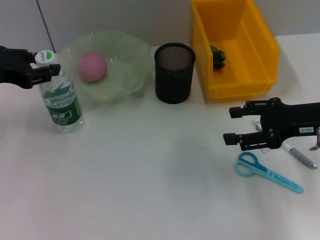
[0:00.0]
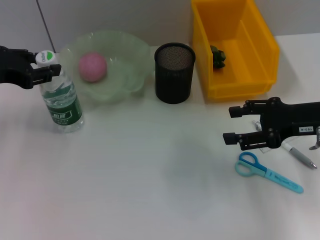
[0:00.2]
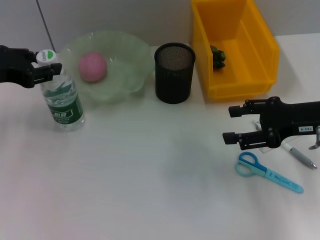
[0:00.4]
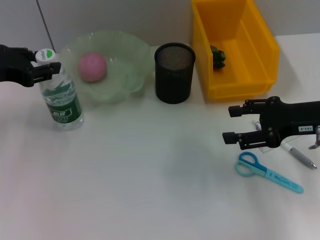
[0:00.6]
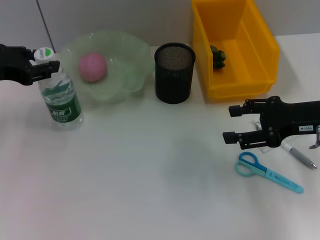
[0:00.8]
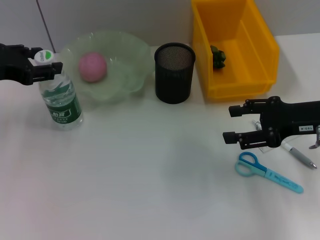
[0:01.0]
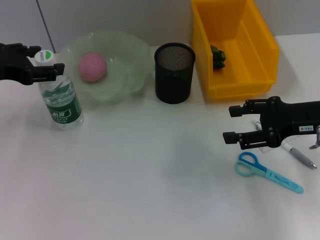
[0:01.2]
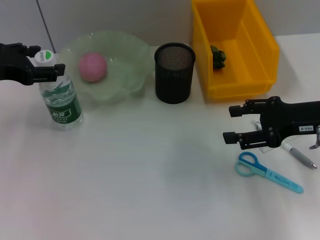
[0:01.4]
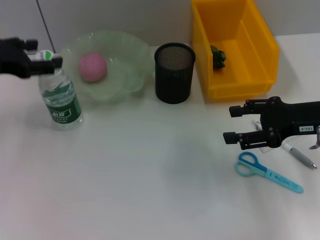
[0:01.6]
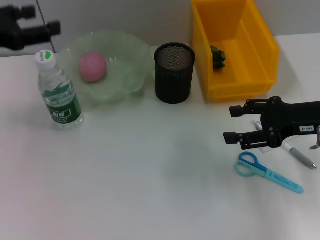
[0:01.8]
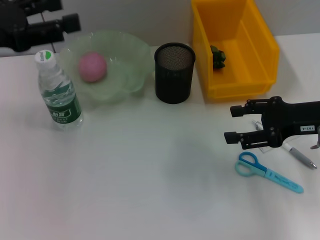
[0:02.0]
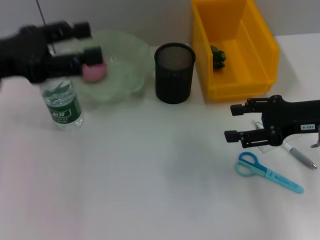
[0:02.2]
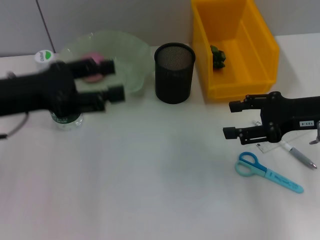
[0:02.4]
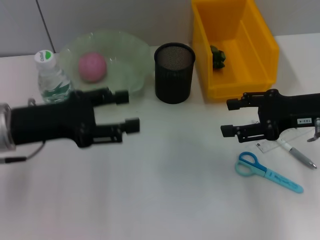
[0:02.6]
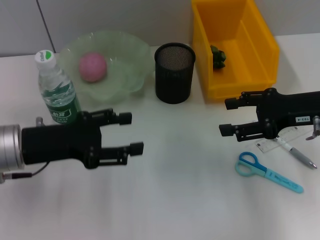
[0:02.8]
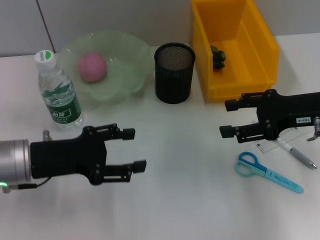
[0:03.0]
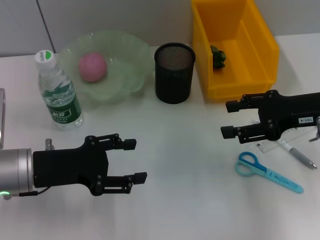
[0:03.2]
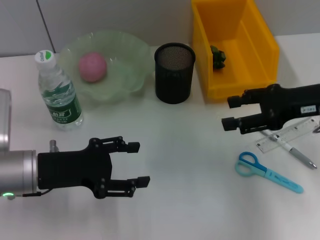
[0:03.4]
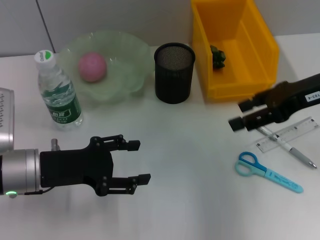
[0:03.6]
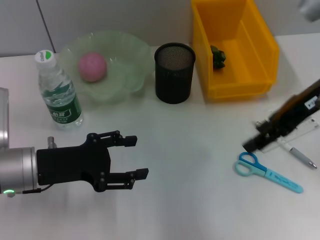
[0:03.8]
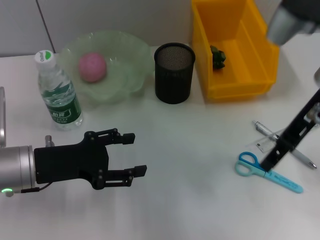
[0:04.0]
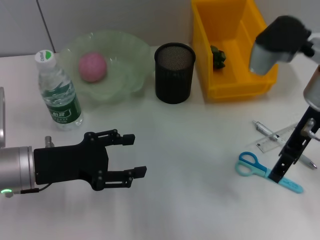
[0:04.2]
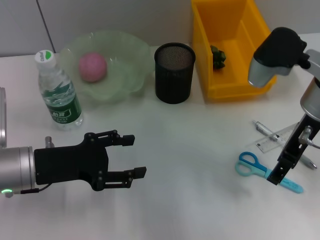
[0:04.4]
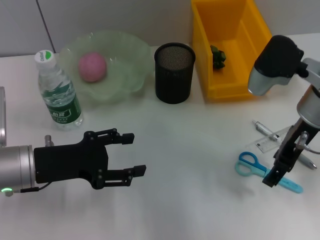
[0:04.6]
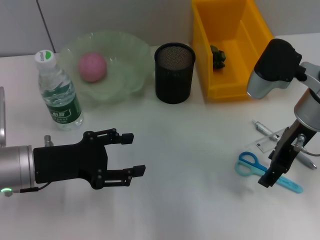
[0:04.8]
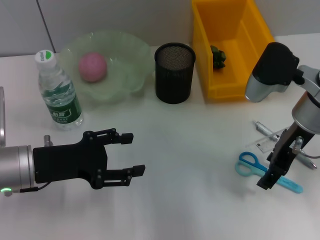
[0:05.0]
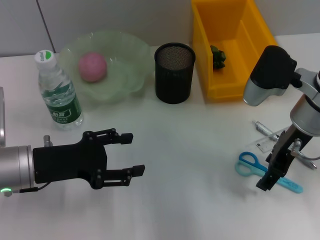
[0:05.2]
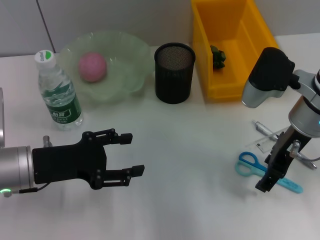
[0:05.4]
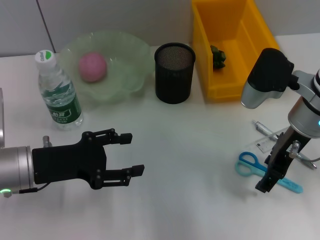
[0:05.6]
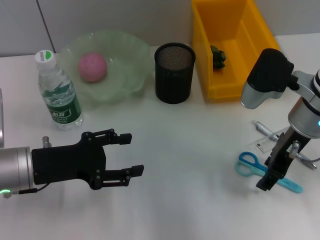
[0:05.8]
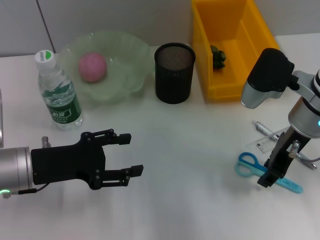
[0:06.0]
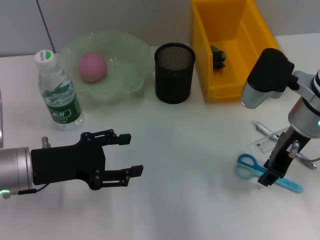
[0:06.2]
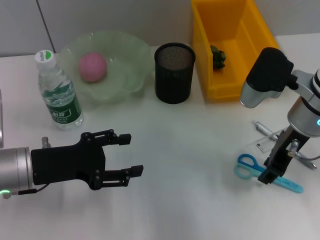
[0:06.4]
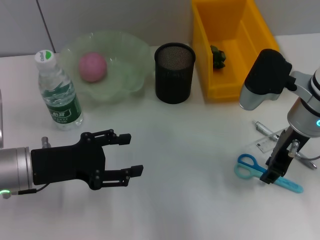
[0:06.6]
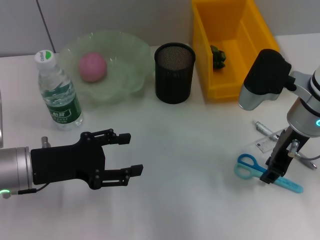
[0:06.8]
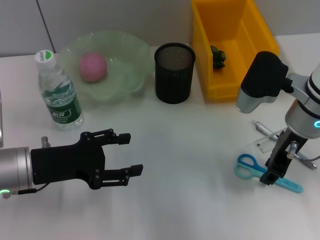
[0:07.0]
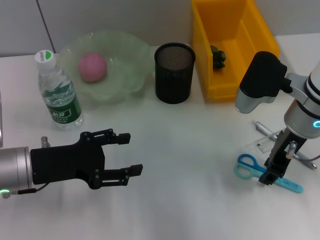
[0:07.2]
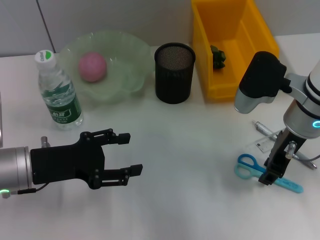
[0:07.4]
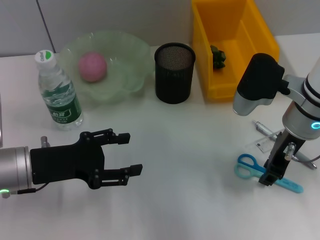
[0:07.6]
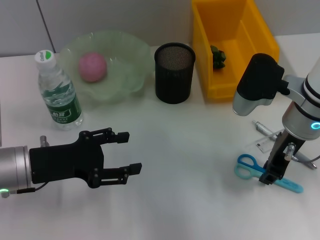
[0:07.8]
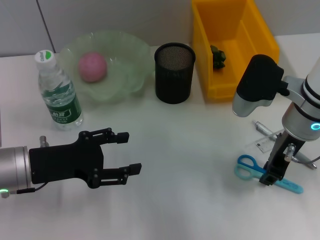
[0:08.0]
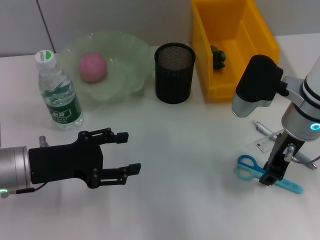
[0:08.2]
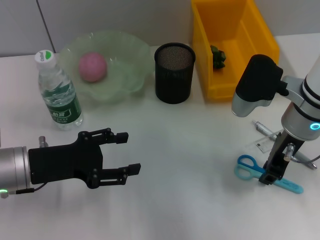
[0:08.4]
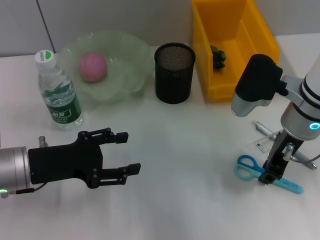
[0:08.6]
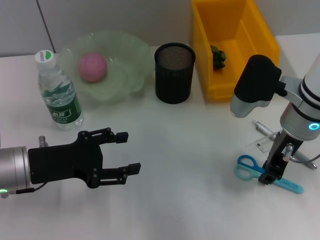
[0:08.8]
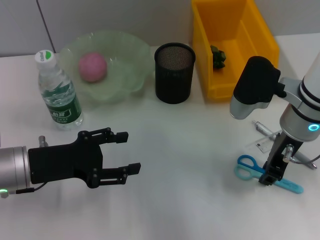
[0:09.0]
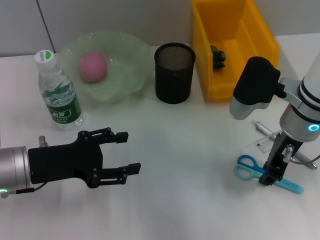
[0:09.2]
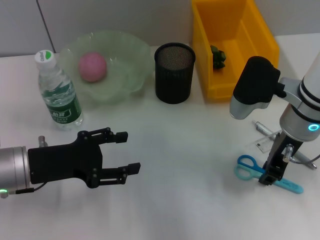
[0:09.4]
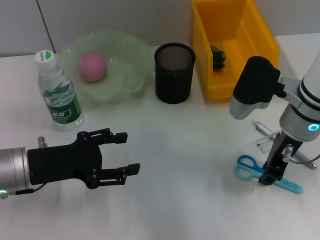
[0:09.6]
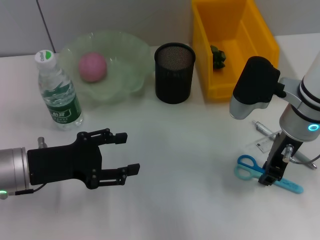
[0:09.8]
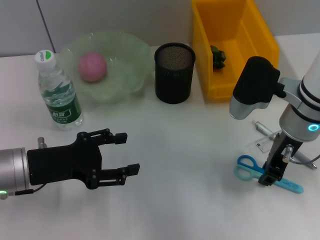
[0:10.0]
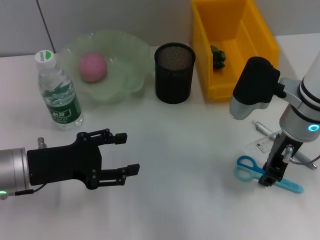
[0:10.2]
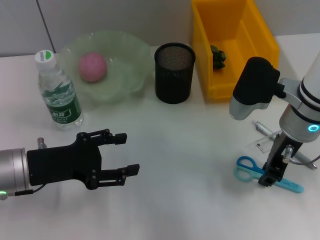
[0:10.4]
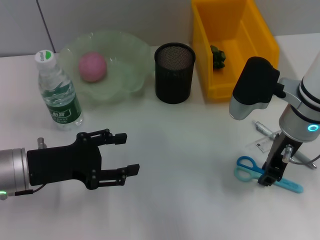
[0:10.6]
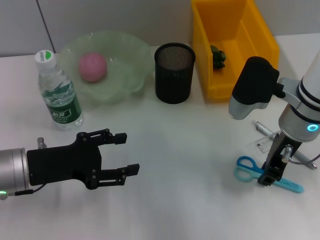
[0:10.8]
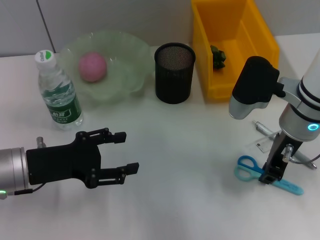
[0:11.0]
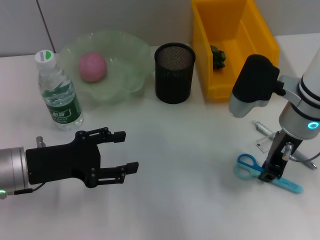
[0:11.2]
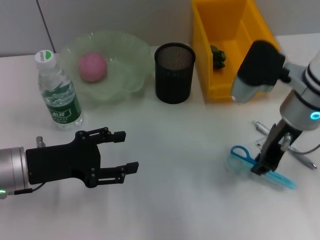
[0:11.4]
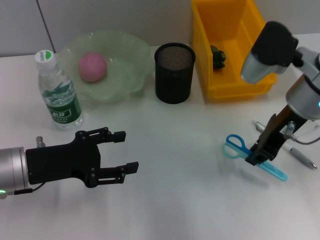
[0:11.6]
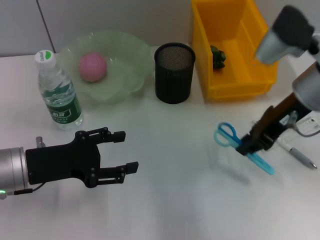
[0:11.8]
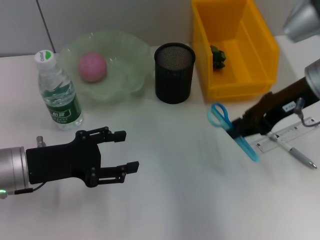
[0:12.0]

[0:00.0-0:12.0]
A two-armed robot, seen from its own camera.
Step, 0:01.6 to 0:10.8: Grab the blue scissors with the right hand.
0:00.0 to 0:01.6: The left gripper opens its fingers.
0:01.6 to 0:03.0: The left gripper heads downward, backward and to the right, covering roughly 15 cm.
0:03.0 to 0:04.4: The right gripper goes about 5 cm to the left.
0:04.4 to 0:06.0: There are only small adjustments of the grippers.
0:06.0 to 0:07.6: Both grippers stay about where they are.
0:07.6 to 0:10.4: The two grippers keep their place.
0:10.4 to 0:12.0: The right gripper heads upward, covering some 5 cm.

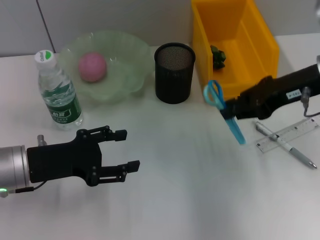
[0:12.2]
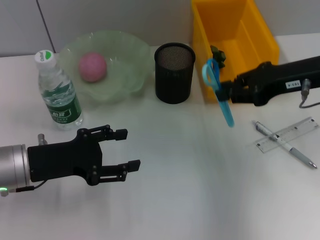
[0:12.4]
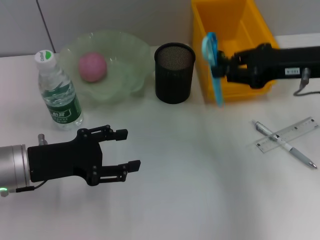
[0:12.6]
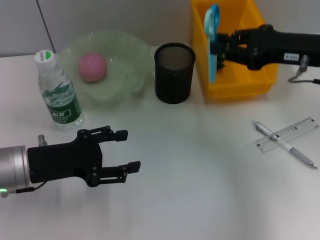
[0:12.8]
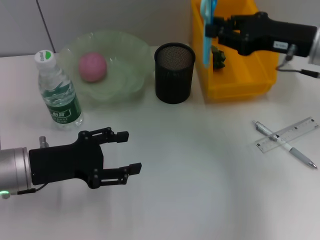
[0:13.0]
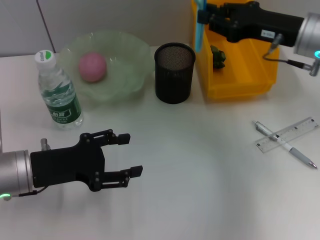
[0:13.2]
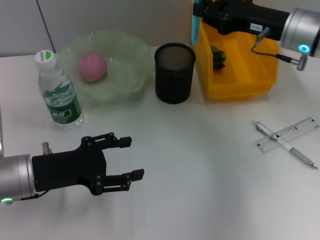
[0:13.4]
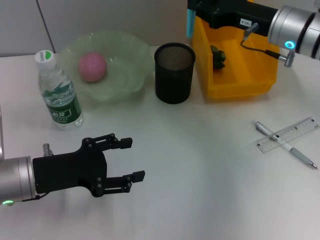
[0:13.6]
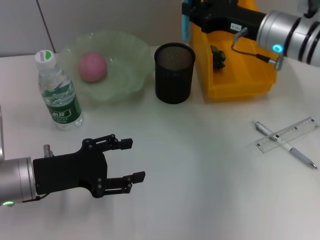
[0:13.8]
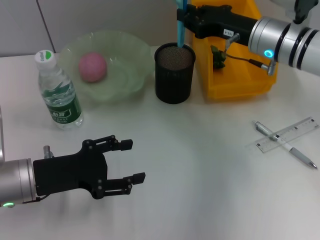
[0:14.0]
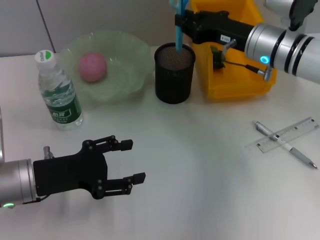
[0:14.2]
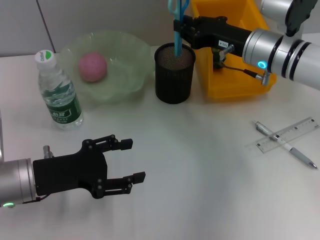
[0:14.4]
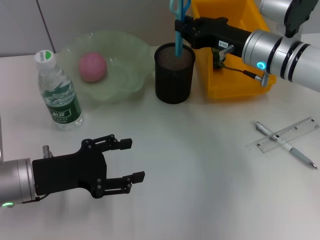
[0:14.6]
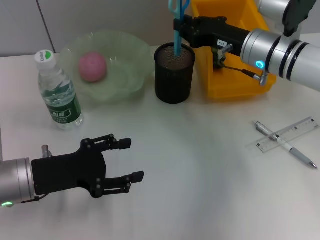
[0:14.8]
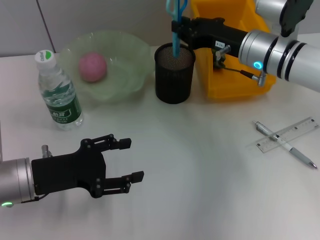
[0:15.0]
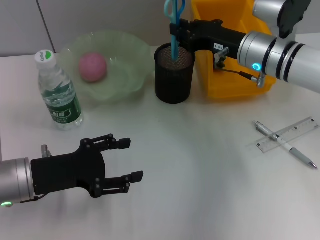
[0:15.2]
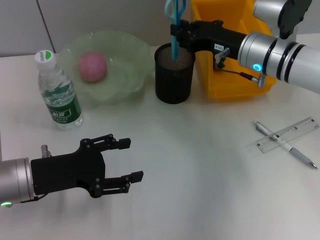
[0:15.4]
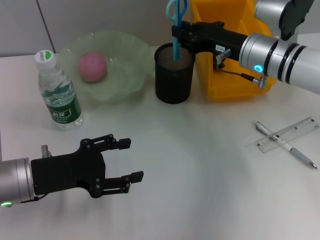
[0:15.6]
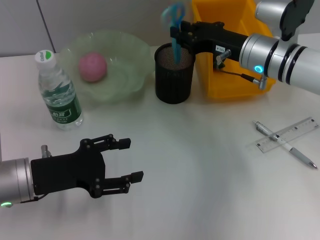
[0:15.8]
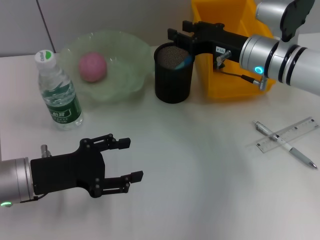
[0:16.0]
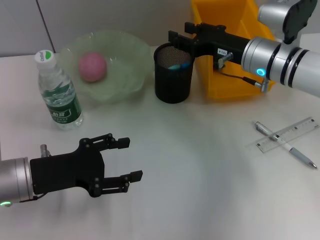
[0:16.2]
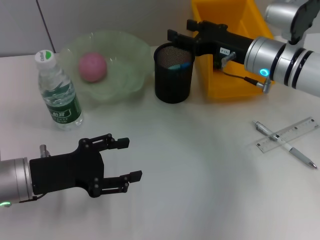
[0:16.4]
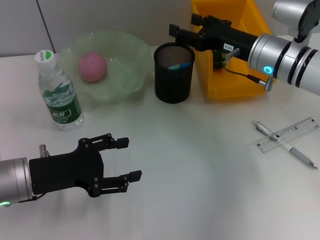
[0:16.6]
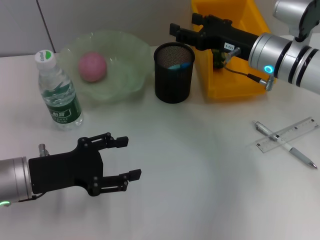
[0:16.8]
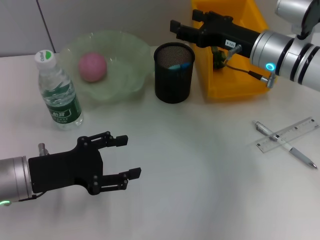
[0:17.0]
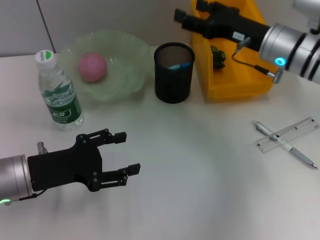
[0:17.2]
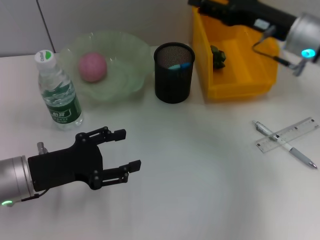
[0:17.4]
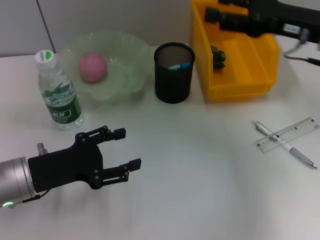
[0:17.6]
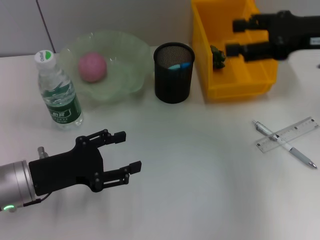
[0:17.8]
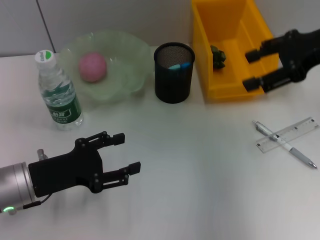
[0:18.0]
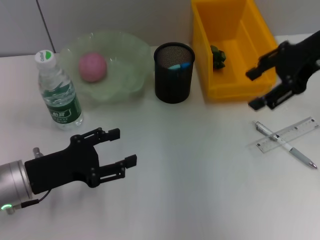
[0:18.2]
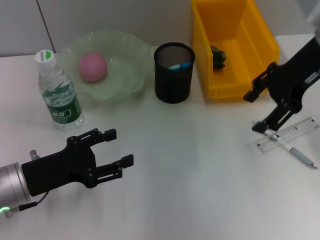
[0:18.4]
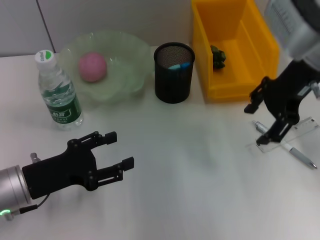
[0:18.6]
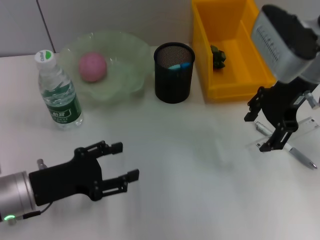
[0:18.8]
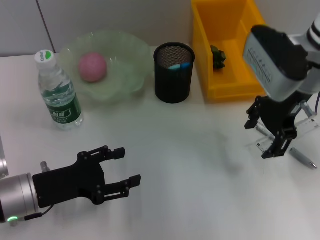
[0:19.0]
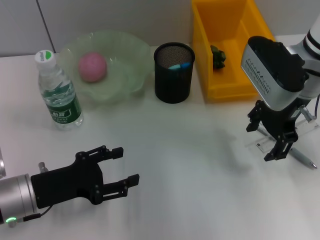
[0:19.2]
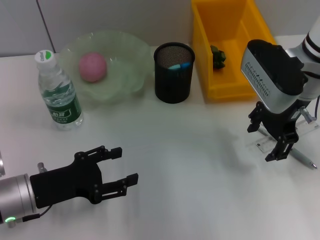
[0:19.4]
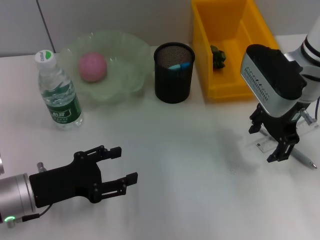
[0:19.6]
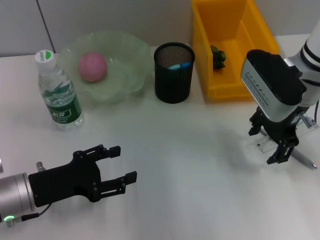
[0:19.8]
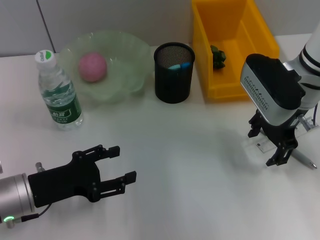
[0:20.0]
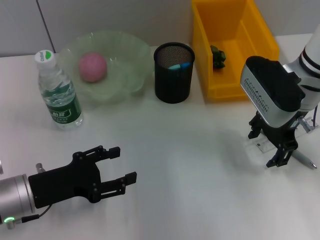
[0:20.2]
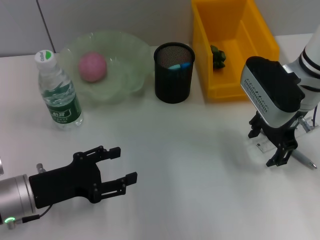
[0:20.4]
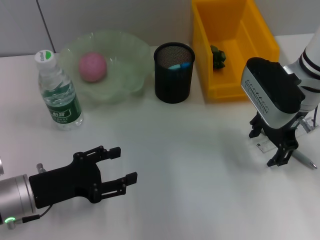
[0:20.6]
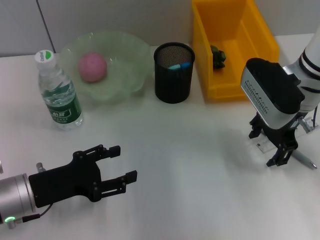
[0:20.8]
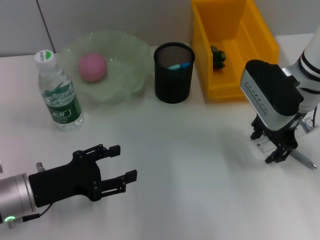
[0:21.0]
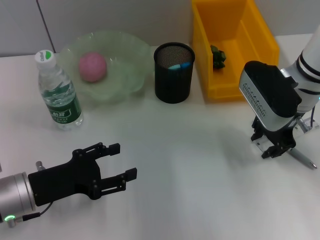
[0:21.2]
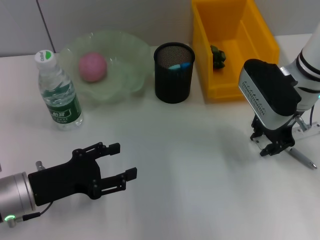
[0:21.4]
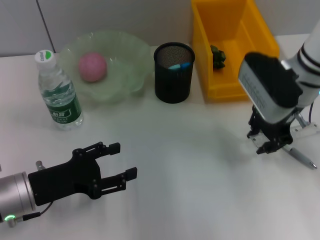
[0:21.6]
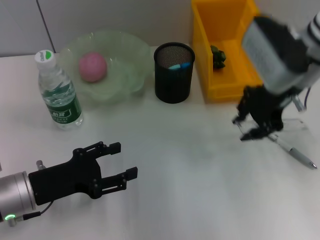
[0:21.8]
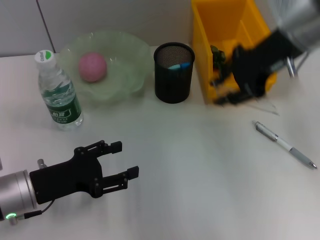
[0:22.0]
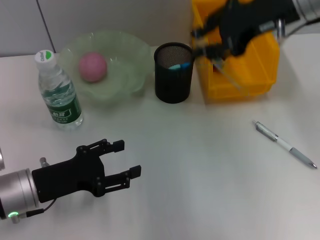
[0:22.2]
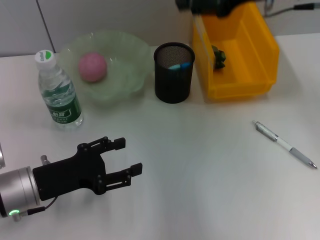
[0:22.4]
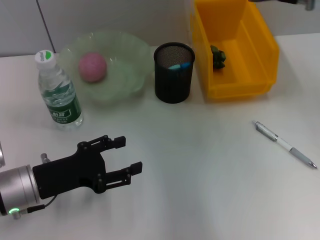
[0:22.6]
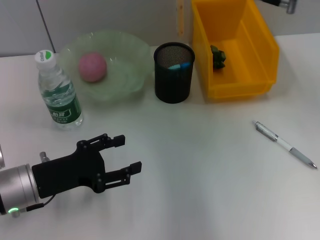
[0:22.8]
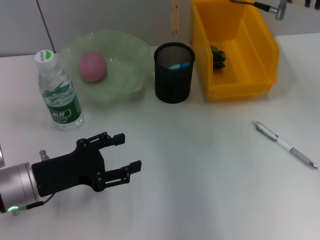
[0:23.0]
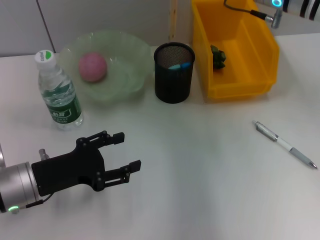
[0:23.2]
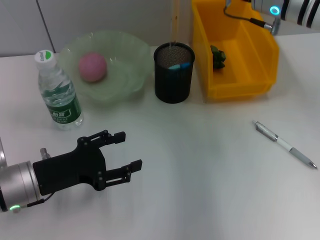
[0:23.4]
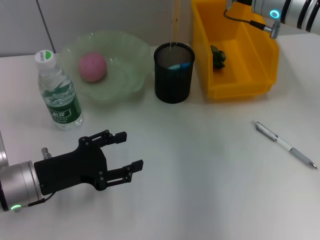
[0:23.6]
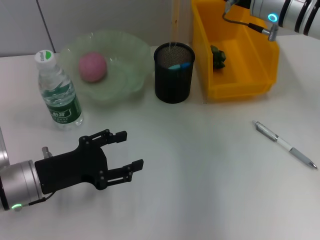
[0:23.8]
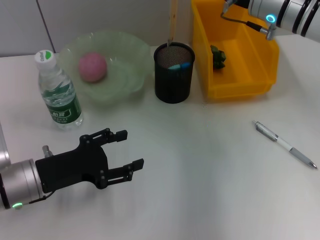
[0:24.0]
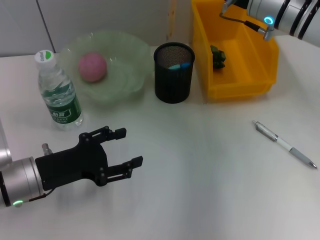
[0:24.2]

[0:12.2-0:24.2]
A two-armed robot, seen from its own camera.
Step, 0:12.2 to 0:16.0: Place the blue scissors into the pen holder with the right hand.
Step, 0:16.2 to 0:21.4: Grab the ruler with the right hand.
0:12.2 to 0:13.8: The right gripper goes approximately 10 cm forward.
0:13.8 to 0:15.2: The grippers stay close to where they were, moving slightly.
0:15.2 to 0:16.6: The right gripper opens up.
0:16.6 to 0:18.2: The right gripper heads upward and to the right, covering some 15 cm.
0:18.2 to 0:19.8: The right gripper travels downward and to the left by roughly 10 cm.
0:19.8 to 0:21.2: The grippers move only a little.
0:21.2 to 0:22.6: The right gripper travels upward by roughly 10 cm, and closes its fingers.
0:22.6 to 0:24.2: The right gripper moves downward, roughly 5 cm.
